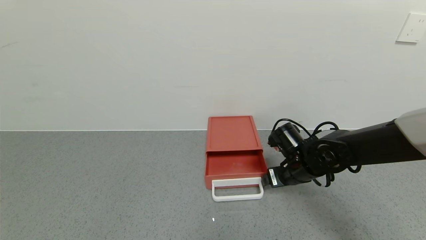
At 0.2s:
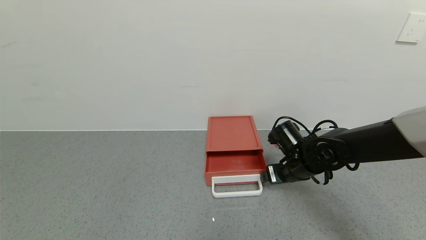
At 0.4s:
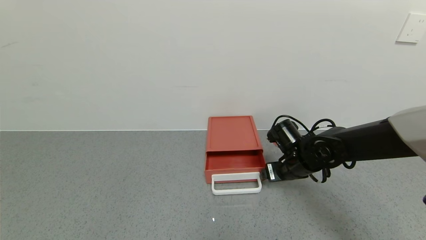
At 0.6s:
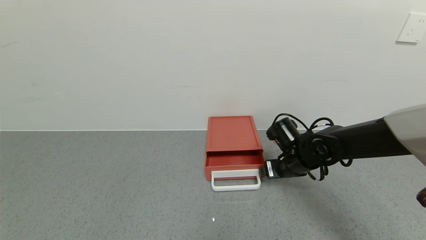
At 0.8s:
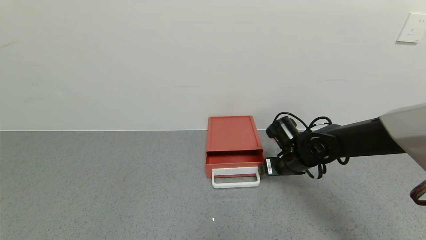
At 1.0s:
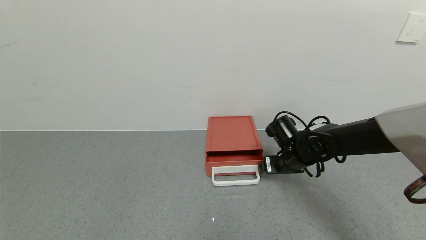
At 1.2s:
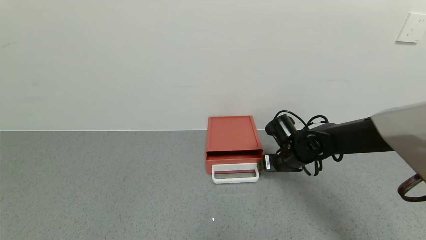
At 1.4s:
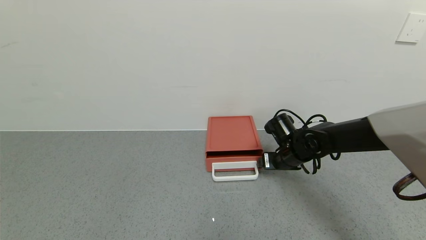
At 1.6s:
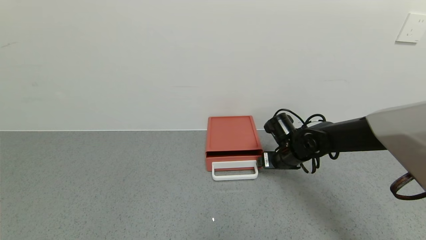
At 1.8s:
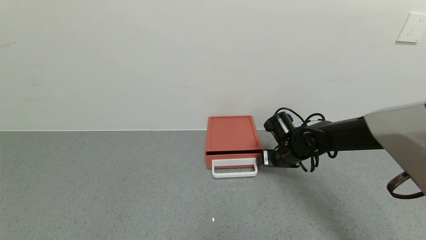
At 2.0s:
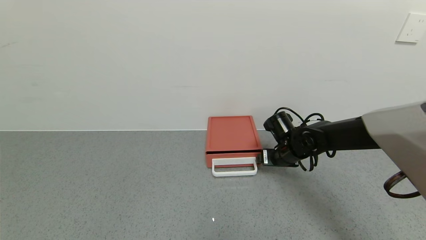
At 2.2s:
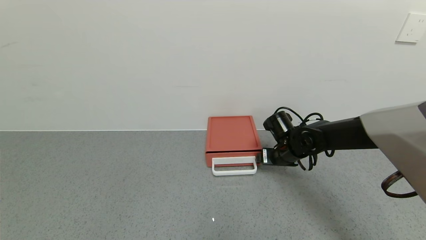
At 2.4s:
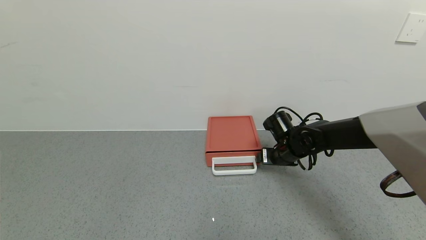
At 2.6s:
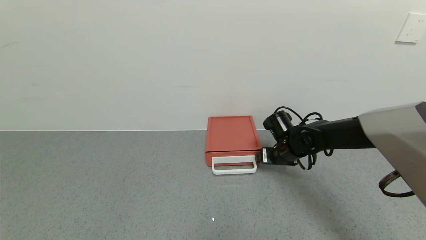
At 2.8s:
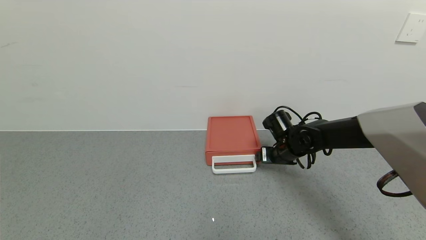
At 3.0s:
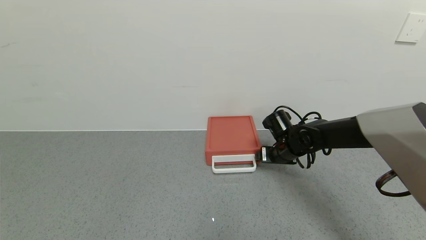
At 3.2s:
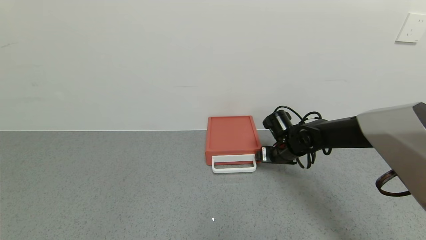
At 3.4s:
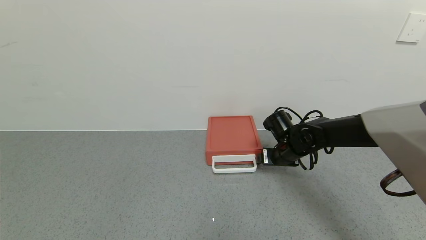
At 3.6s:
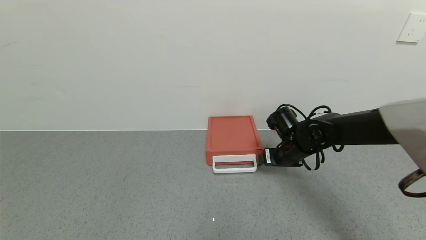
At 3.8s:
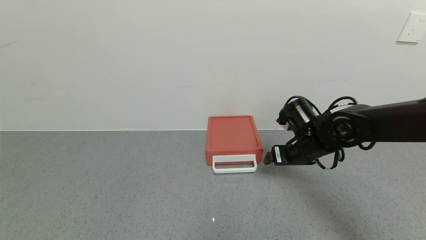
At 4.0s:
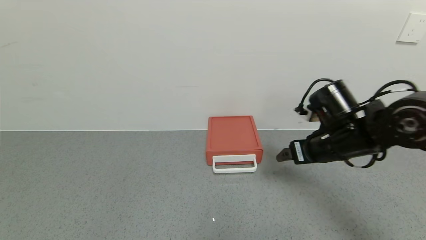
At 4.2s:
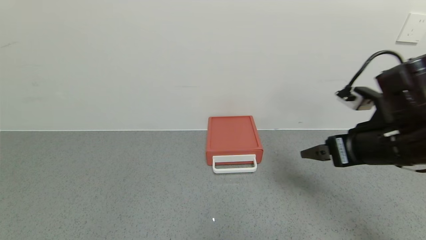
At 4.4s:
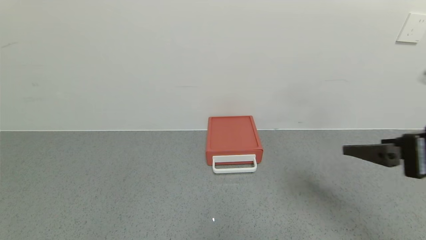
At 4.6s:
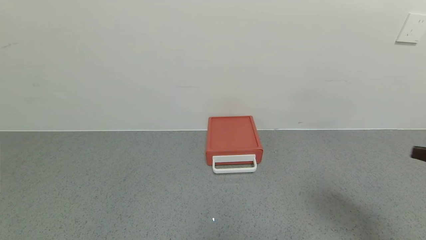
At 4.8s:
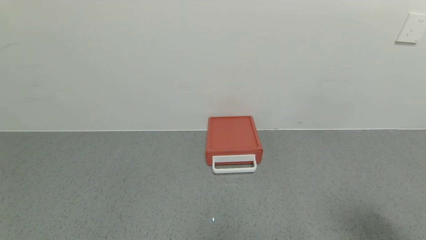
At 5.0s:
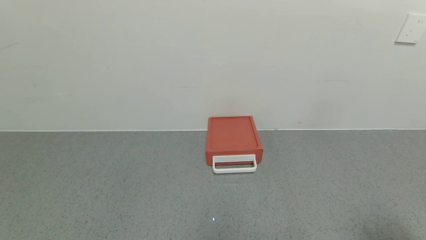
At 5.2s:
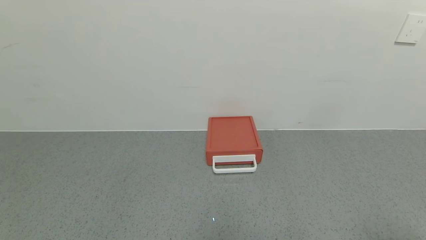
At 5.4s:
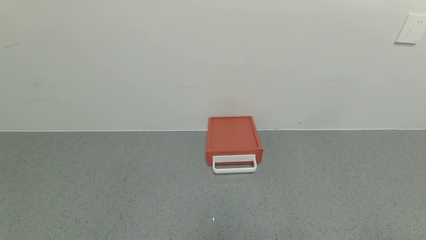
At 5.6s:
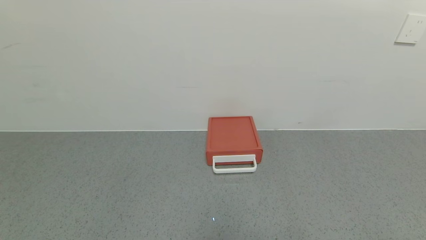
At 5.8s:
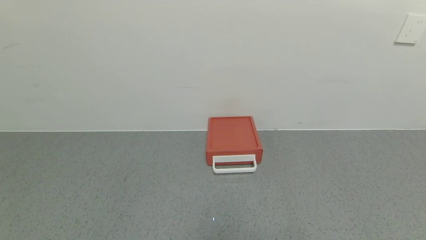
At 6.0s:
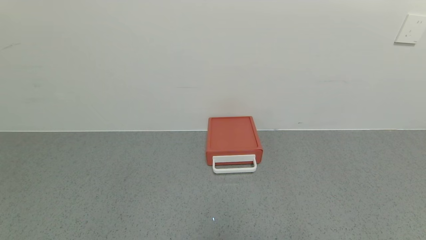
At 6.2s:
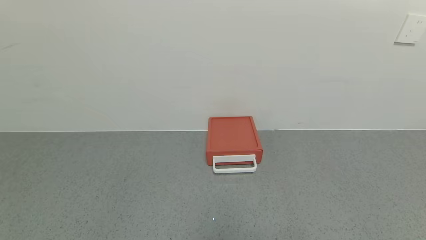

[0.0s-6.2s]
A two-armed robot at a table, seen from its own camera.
Task of the whole recording: use the gripper to open the drawer and close the red drawer.
Step, 0.0s to 3.6s: Close the red drawer with the right gripper.
0.0s to 1.6s: The right gripper heads forward, covering roughly 5 cm.
1.6s to 3.2s: The grippers stay close to where they were, moving slightly.
3.2s to 4.6s: The right gripper shifts about 40 cm backward, upward and to the right.
4.6s to 6.2s: The right gripper heads downward and backward, covering approximately 20 cm.

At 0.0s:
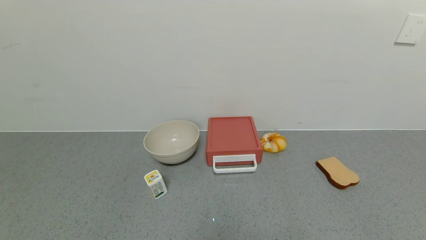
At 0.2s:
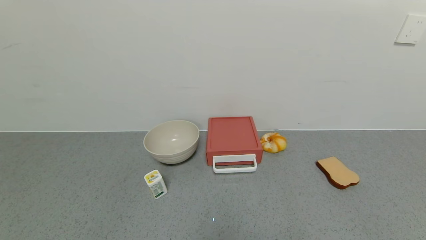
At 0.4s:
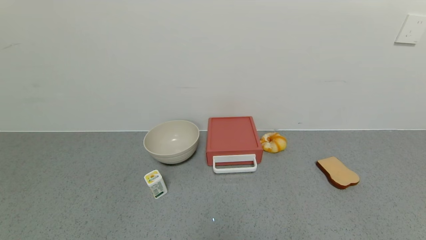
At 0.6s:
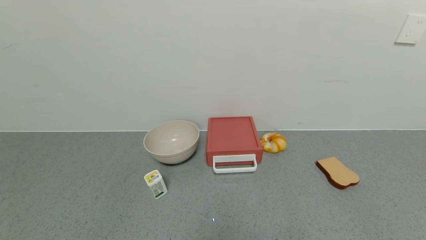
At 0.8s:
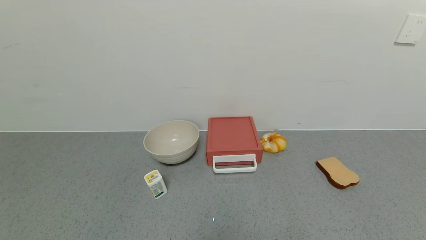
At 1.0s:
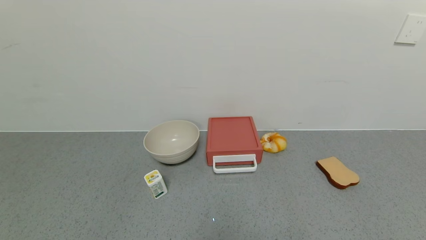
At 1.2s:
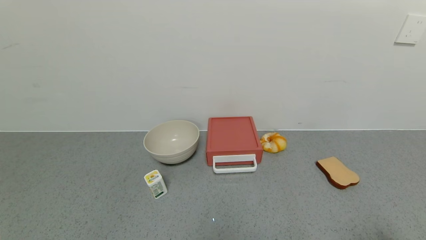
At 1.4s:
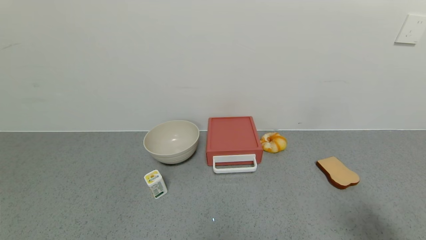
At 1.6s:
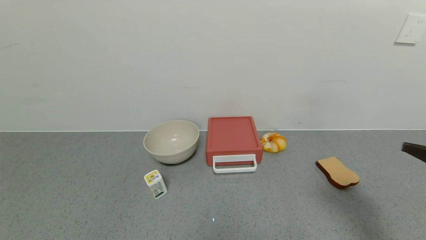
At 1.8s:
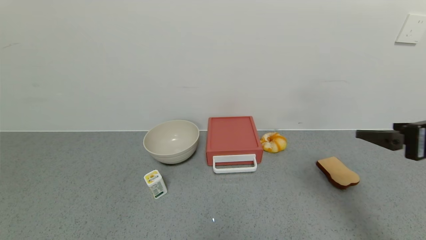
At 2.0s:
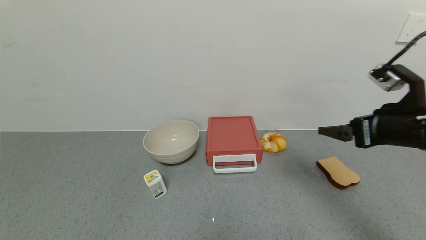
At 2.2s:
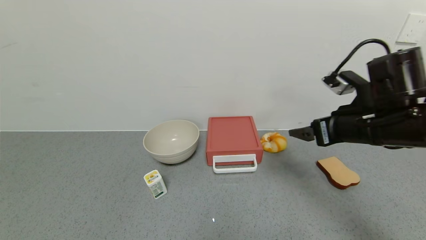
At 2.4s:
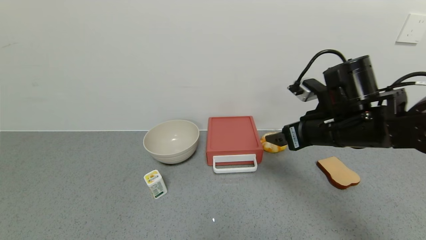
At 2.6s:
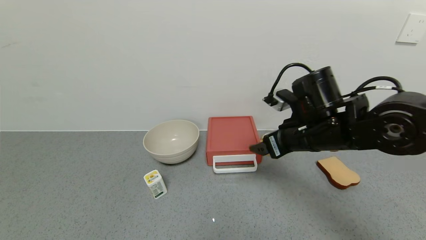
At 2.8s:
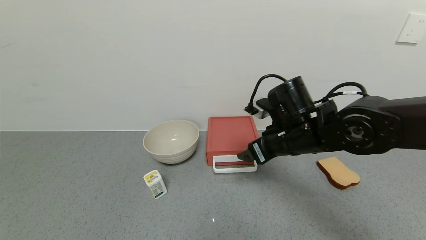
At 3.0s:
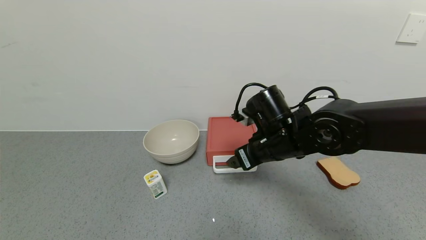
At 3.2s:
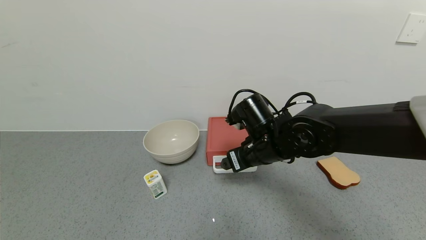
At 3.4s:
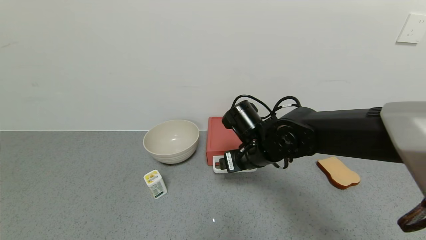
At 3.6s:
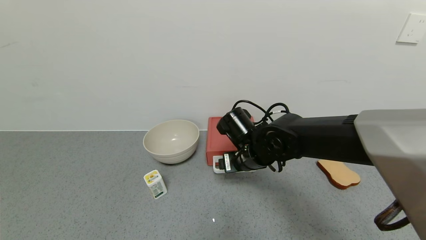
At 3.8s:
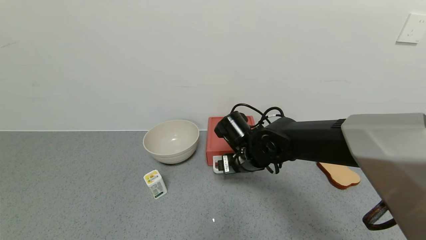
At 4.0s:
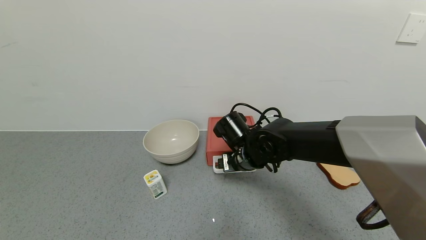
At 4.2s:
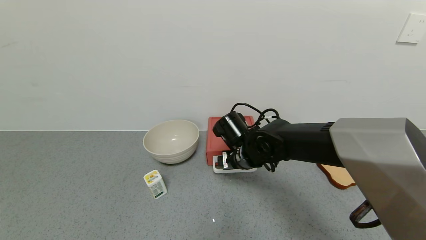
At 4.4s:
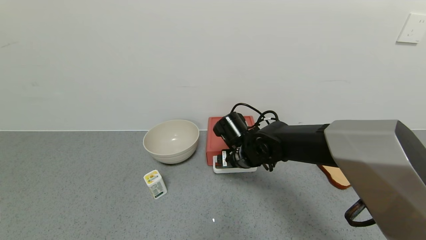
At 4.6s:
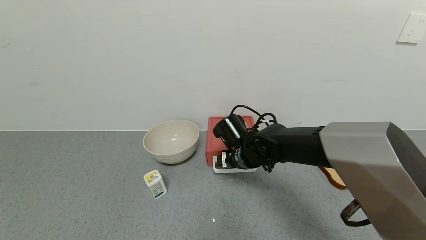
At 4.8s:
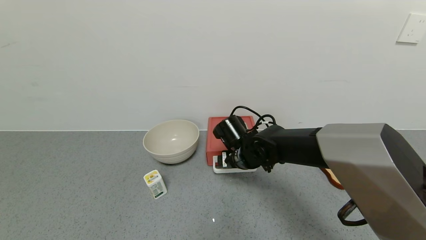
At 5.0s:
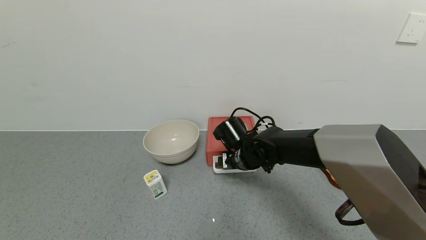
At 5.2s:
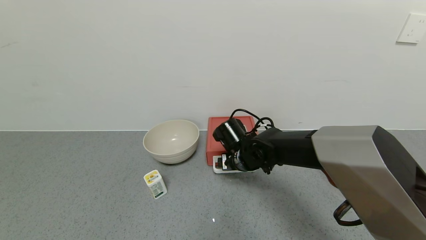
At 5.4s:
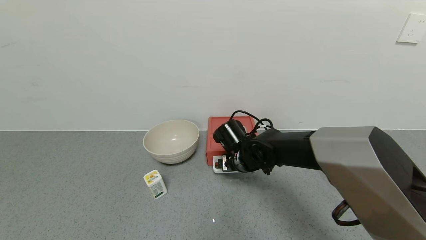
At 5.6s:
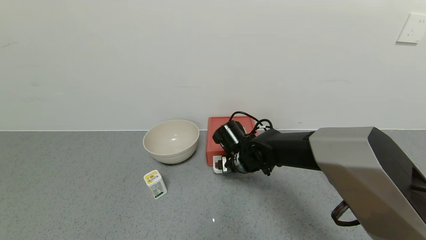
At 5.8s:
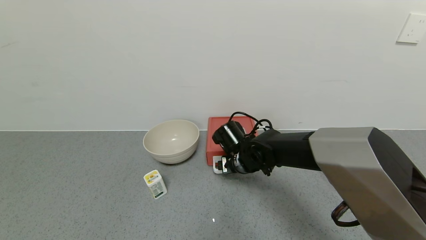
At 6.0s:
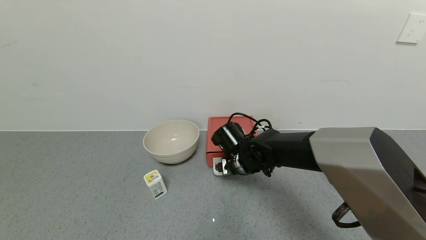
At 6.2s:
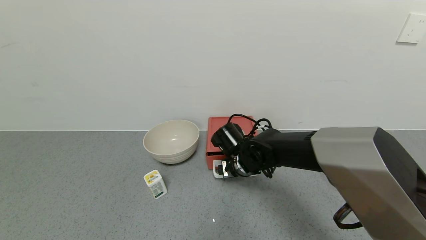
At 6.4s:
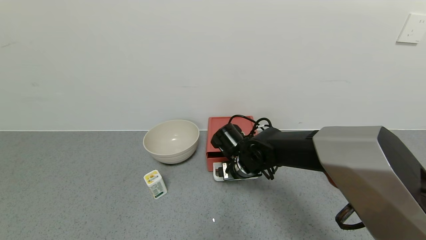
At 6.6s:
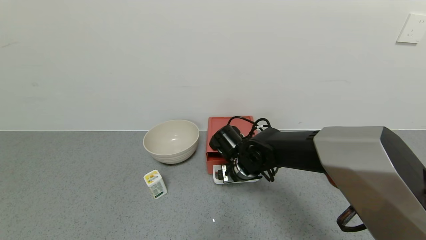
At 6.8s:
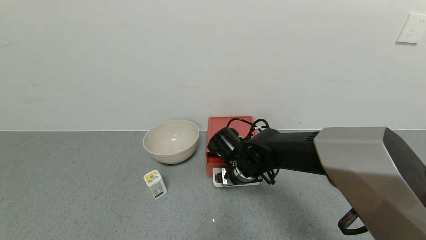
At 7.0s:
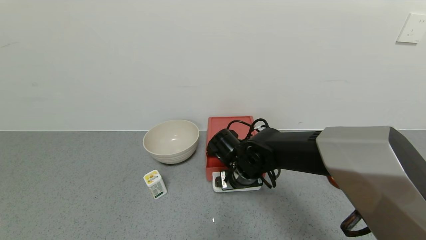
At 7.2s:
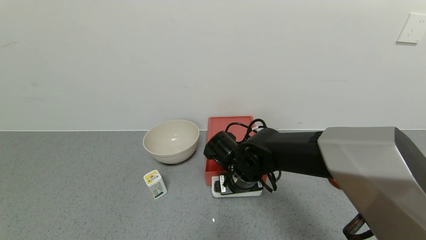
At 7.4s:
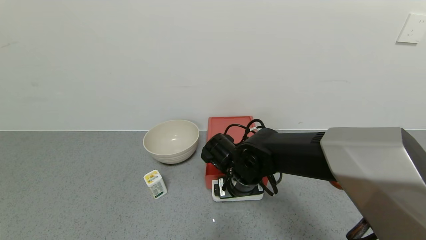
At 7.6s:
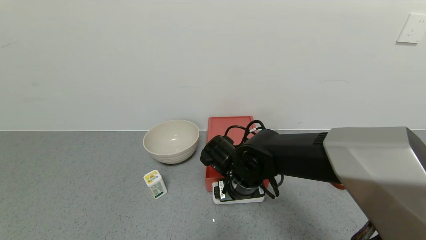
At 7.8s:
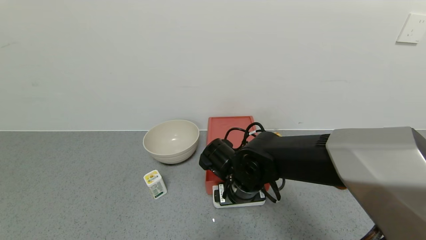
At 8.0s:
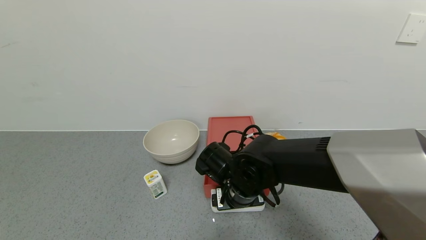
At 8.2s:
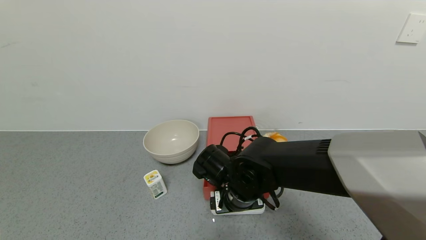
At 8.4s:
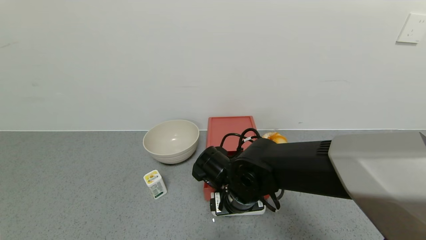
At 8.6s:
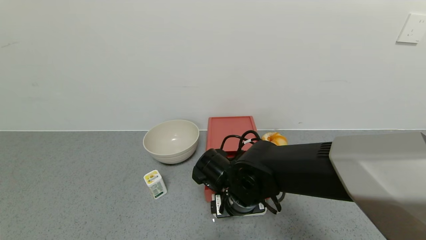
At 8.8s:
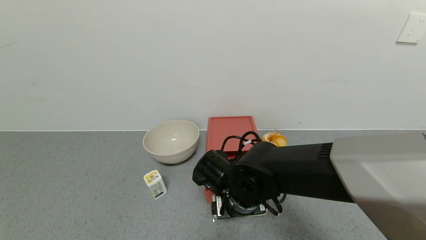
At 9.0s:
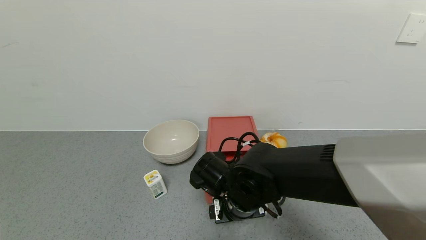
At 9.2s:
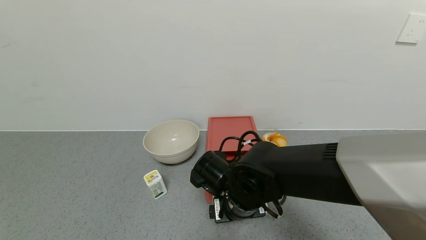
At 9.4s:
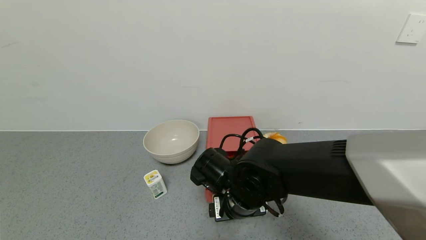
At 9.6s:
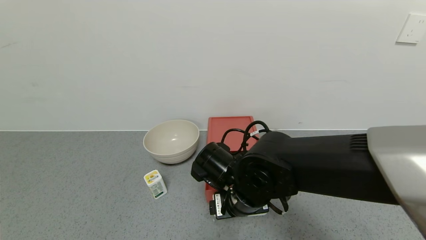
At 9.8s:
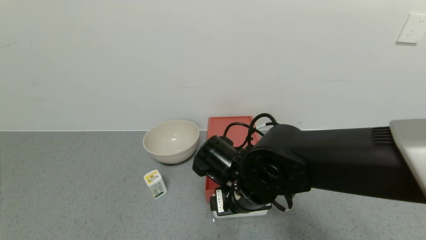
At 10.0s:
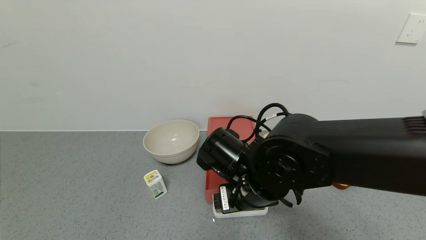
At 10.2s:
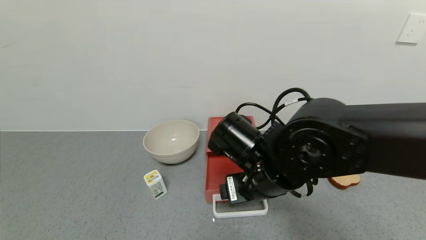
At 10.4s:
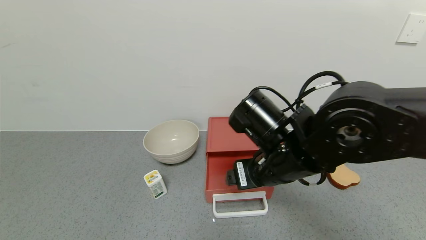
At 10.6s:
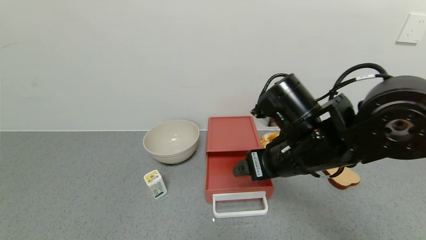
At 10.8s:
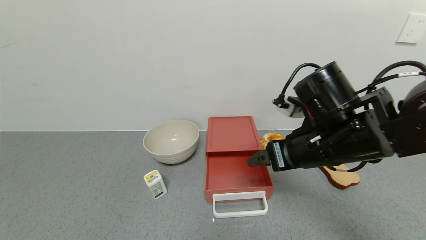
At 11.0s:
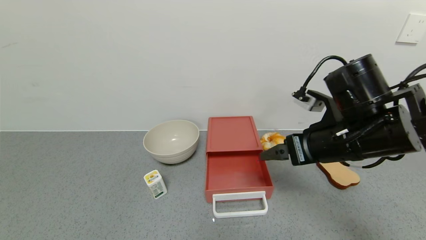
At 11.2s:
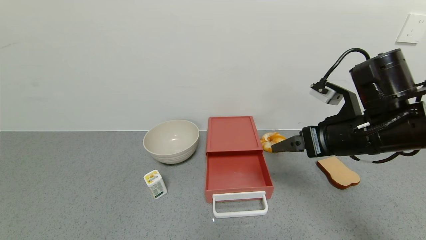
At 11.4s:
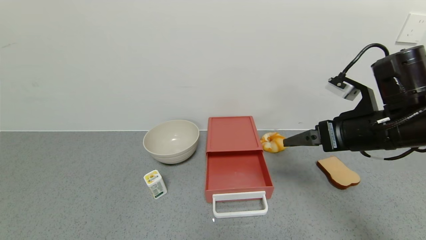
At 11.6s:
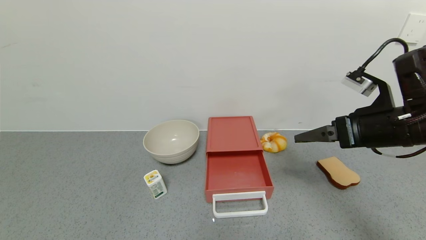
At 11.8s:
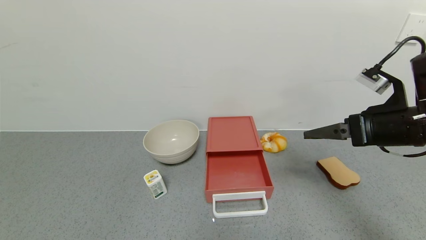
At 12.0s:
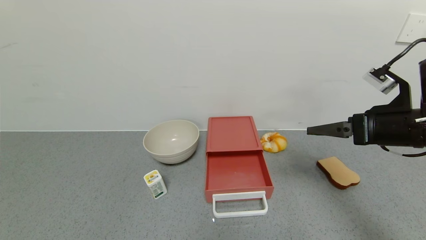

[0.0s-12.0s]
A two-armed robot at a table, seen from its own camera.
Task of the whole recording: use the gripper to open the drawer and close the red drawer.
Step, 0.0s to 10.0s: Open the red drawer with the right gripper.
0.0s to 1.6s: The right gripper moves upward and forward, approximately 25 cm.
1.6s to 3.0s: The right gripper travels to the left and forward by some 30 cm.
3.0s to 4.4s: The right gripper travels downward and to the left by some 10 cm.
4.4s to 6.0s: The grippers move only a little.
6.0s to 7.6s: The right gripper travels backward by about 5 cm.
7.6s to 9.0s: There are only small adjustments of the grippers.
9.0s to 10.4s: The right gripper is displaced upward and to the right by about 10 cm.
10.4s to 12.0s: The right gripper moves to the right, some 20 cm.
